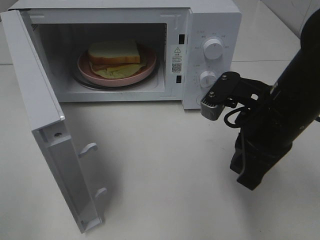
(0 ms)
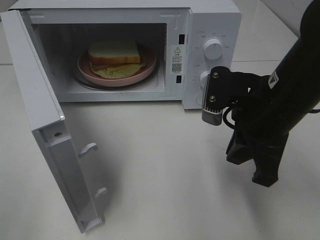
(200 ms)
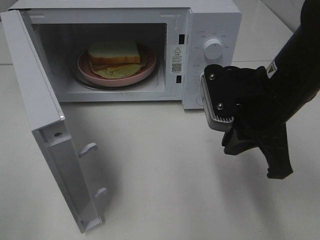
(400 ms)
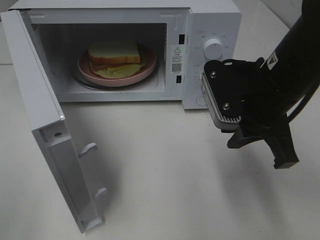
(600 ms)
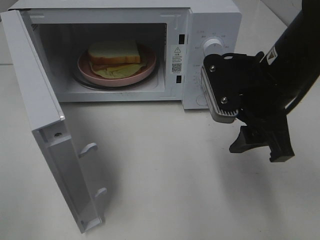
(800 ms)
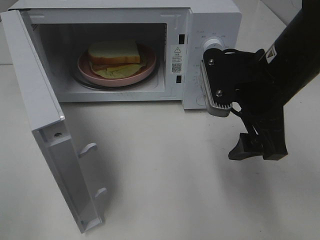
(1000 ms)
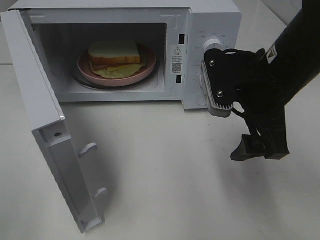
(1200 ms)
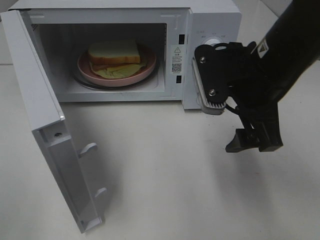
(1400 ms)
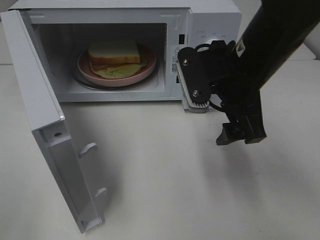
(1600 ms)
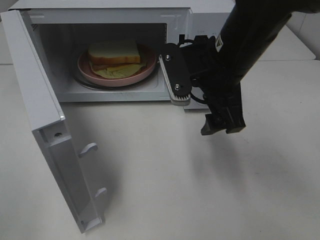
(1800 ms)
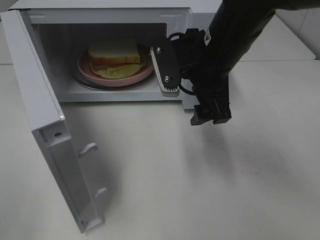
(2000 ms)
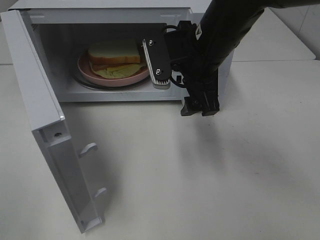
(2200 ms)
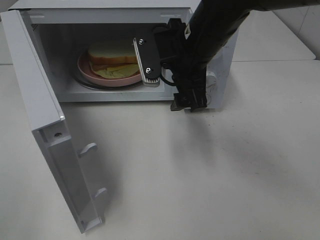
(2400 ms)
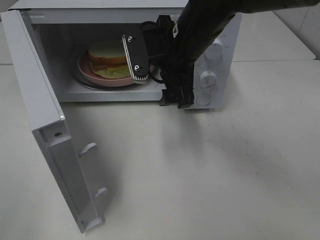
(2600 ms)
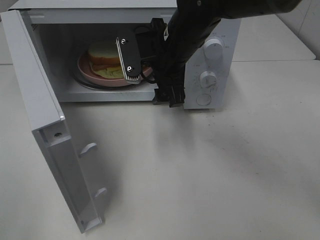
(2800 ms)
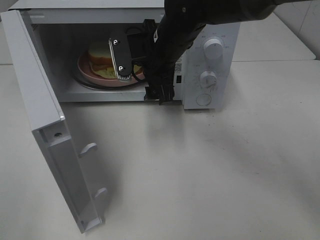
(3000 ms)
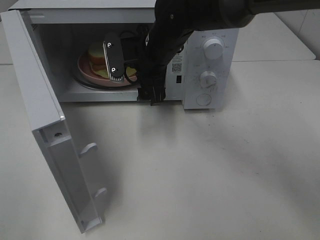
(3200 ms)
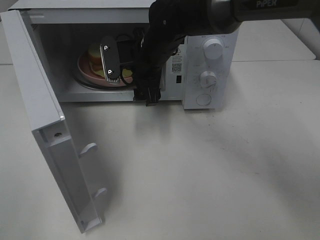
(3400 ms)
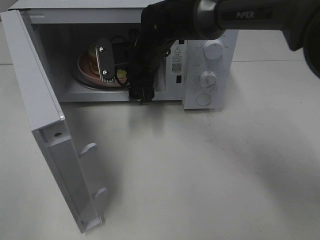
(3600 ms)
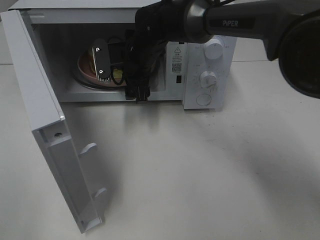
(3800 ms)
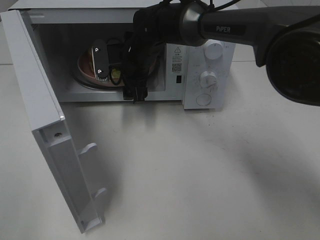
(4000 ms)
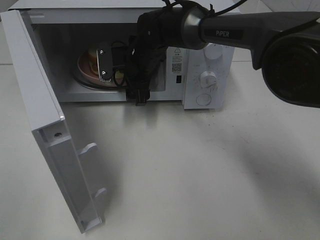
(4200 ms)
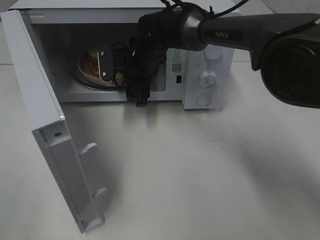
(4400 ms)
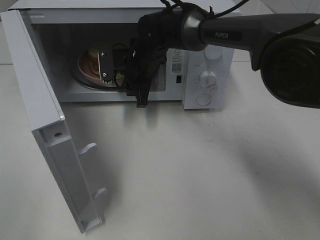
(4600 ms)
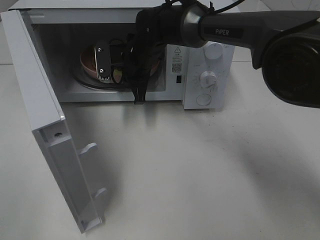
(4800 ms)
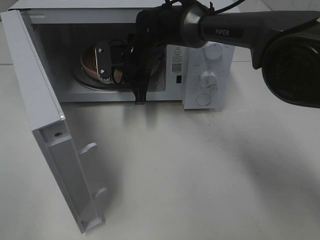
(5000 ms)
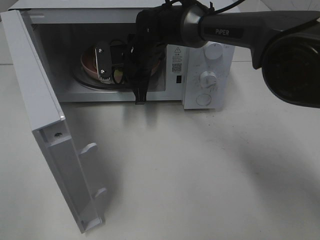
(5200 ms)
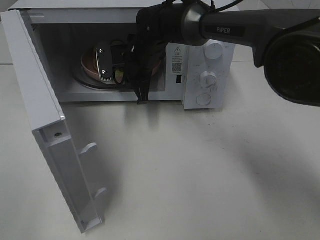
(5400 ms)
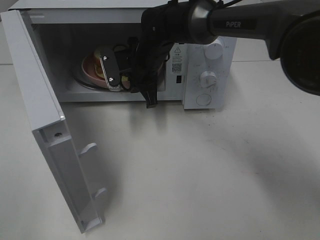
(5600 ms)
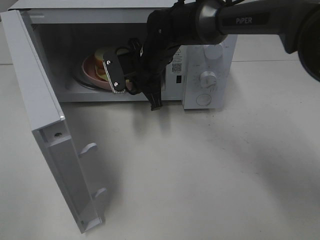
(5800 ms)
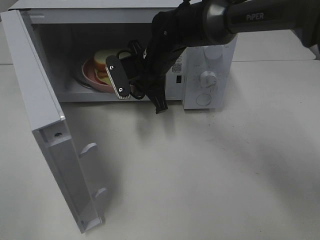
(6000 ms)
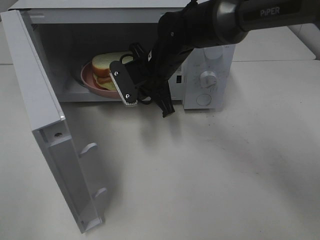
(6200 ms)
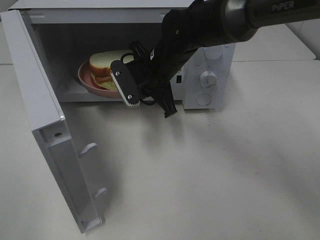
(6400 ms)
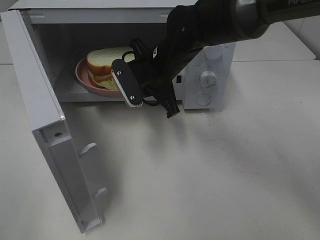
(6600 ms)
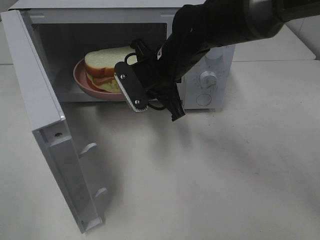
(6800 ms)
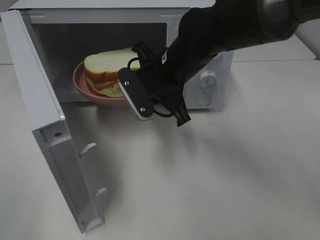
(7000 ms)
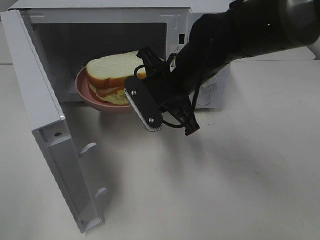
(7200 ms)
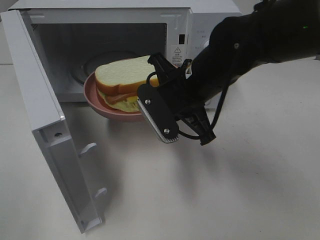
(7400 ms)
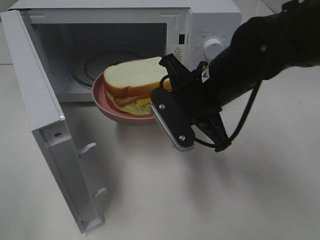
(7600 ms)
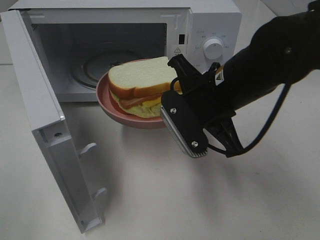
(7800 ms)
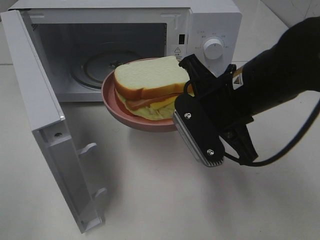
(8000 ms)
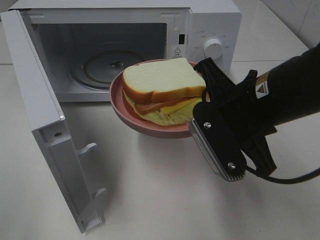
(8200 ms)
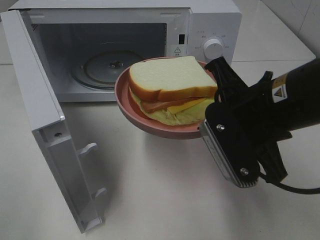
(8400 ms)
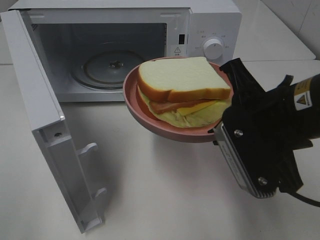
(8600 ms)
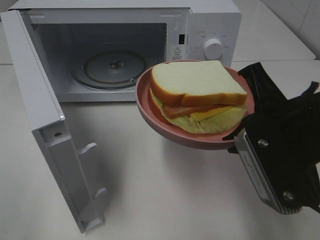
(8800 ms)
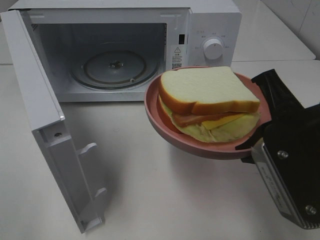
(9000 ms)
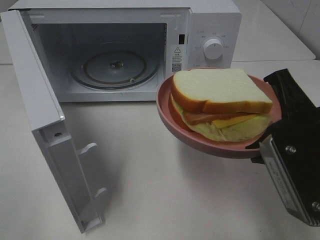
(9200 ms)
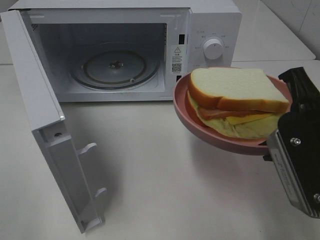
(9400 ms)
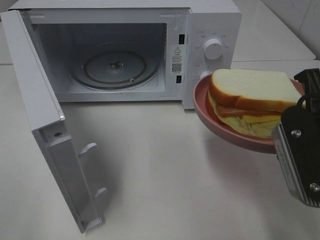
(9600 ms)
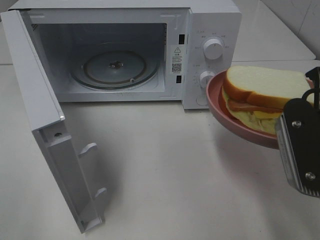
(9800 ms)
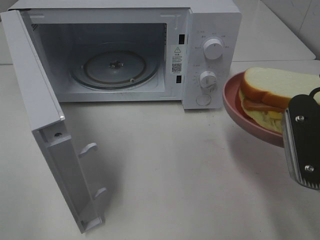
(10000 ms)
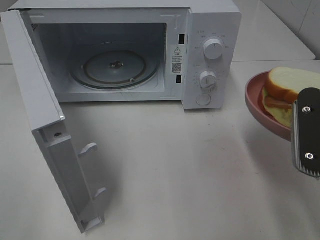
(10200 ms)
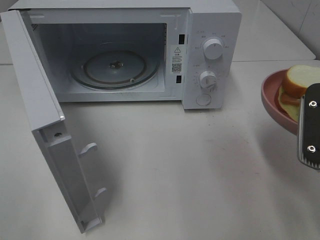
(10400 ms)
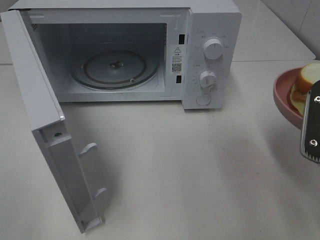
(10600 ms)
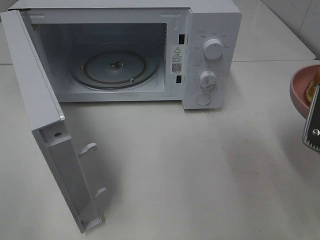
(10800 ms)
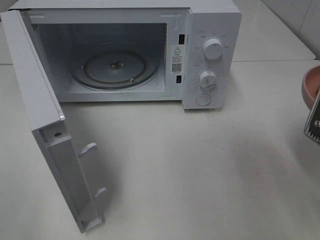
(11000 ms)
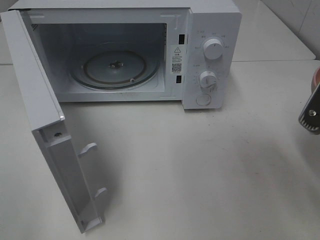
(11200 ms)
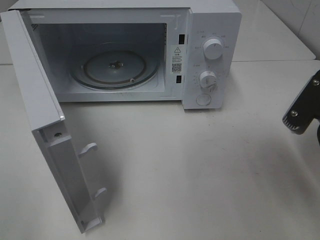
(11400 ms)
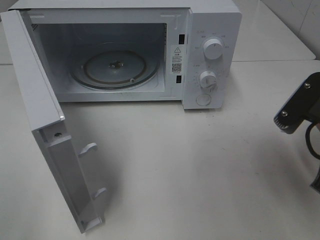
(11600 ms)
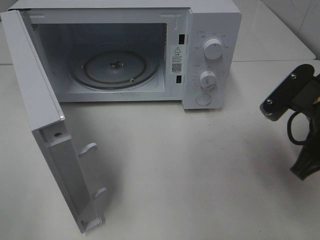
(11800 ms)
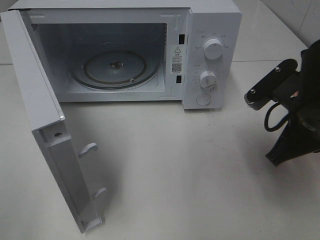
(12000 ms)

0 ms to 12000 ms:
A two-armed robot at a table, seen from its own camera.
Task of the whole recording: Heat Sandwich.
Step, 0 ms to 5400 ms: Right hand: grab the plate with the sandwich.
0 ms to 1600 ms: The right gripper moves roughly 5 cm, and opens.
1600 ms to 3000 ms: The right gripper goes approximately 15 cm forward and to the left.
3000 ms to 4400 ms: The right gripper travels forward and downward by about 10 cm.
4400 ms to 6000 ms: The right gripper moves about 5 cm, and closes.
6000 ms to 7600 ms: The right gripper heads backward and to the right, covering approximately 15 cm.
7600 ms to 9000 ms: The right gripper is displaced backward and to the right by roughly 15 cm.
9000 ms to 10400 ms: The right gripper goes roughly 5 cm to the right.
10400 ms to 12000 ms: The right gripper travels forward by some 5 cm.

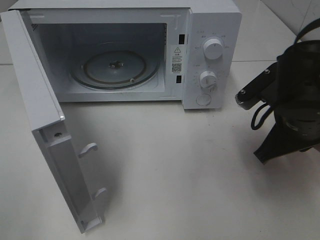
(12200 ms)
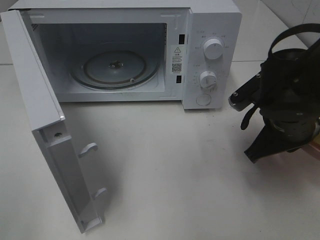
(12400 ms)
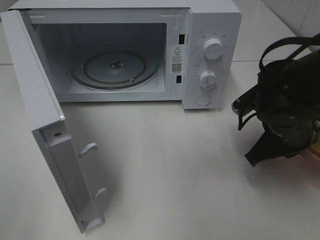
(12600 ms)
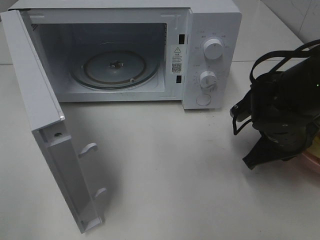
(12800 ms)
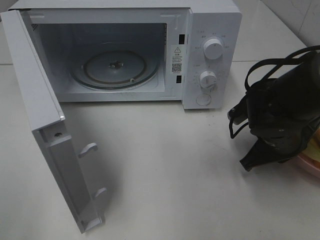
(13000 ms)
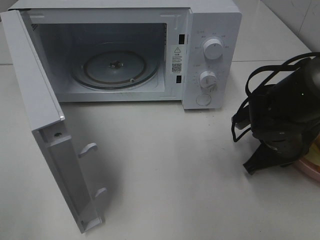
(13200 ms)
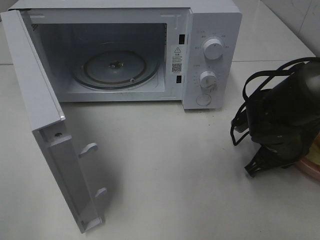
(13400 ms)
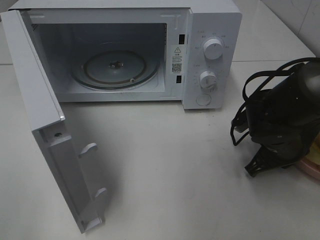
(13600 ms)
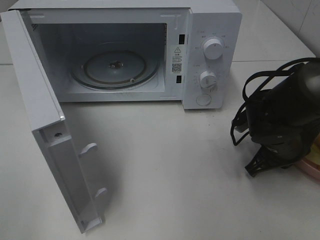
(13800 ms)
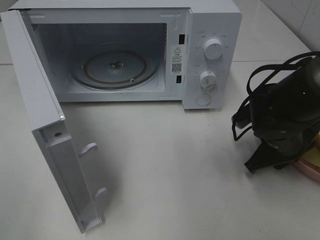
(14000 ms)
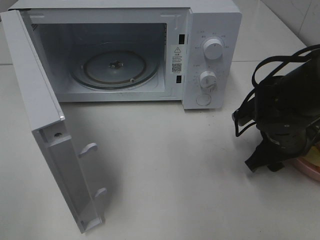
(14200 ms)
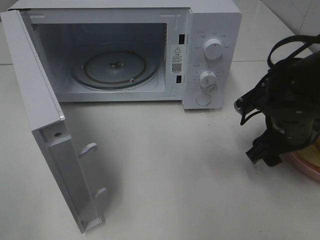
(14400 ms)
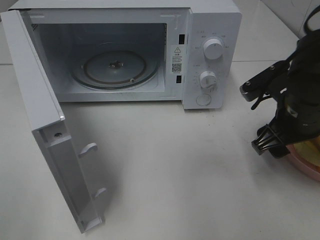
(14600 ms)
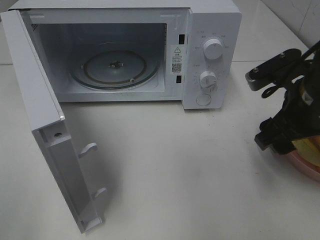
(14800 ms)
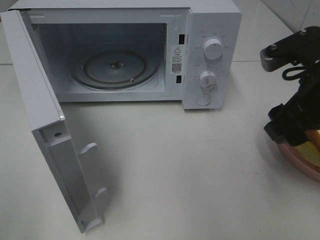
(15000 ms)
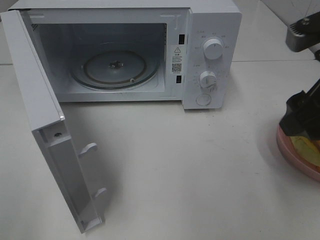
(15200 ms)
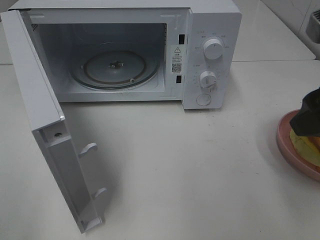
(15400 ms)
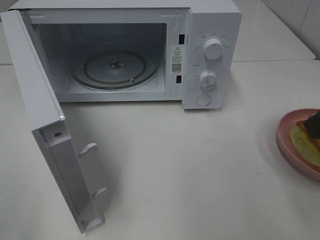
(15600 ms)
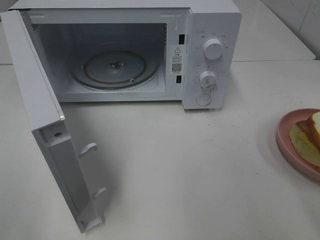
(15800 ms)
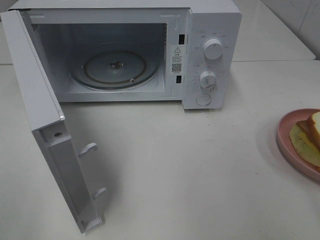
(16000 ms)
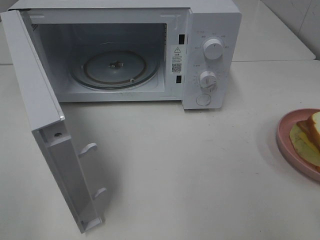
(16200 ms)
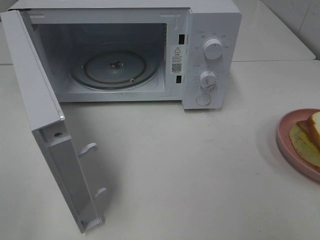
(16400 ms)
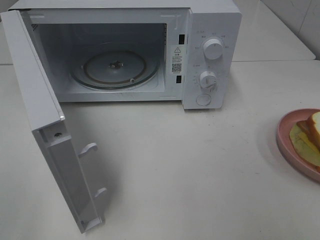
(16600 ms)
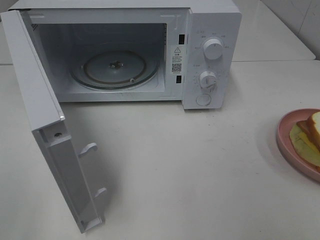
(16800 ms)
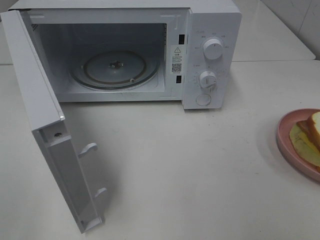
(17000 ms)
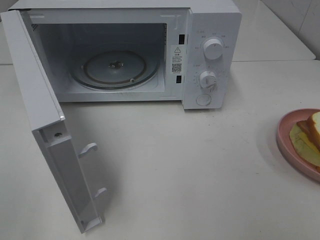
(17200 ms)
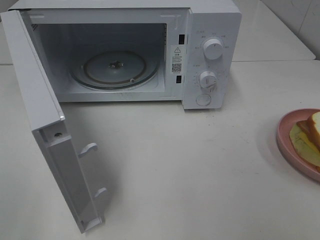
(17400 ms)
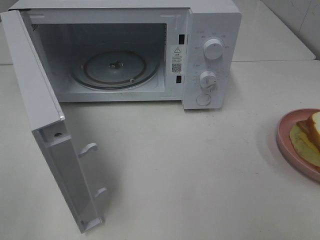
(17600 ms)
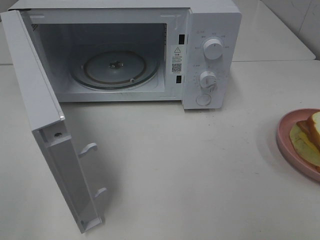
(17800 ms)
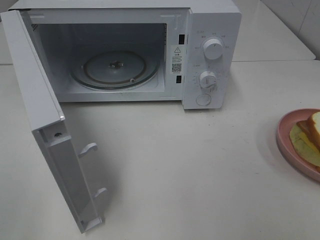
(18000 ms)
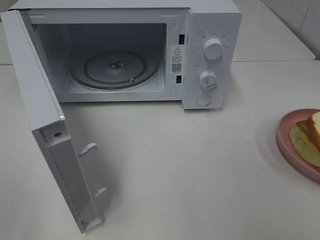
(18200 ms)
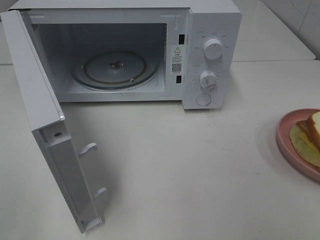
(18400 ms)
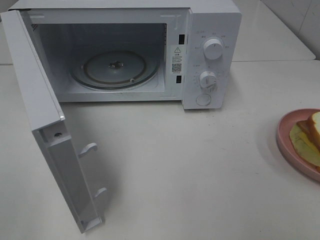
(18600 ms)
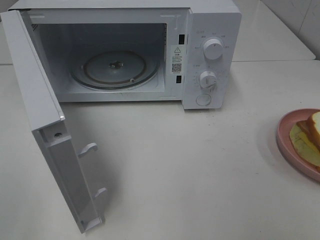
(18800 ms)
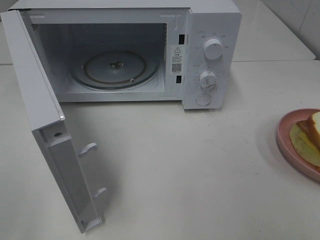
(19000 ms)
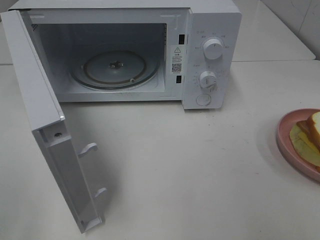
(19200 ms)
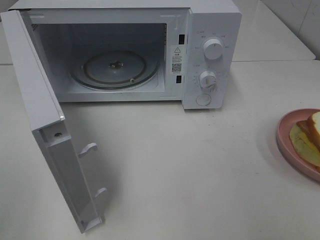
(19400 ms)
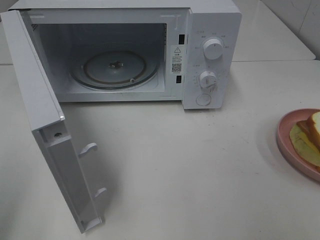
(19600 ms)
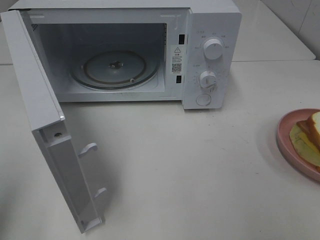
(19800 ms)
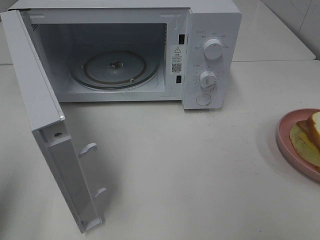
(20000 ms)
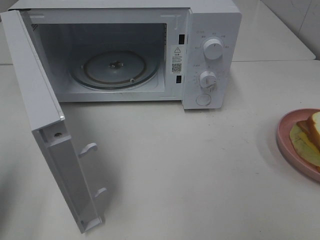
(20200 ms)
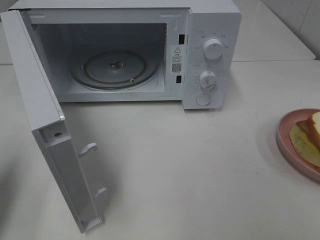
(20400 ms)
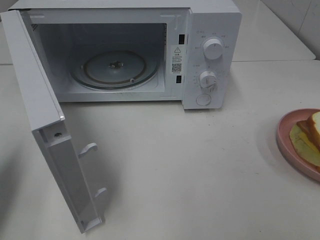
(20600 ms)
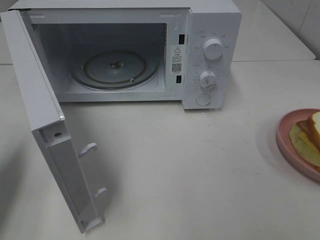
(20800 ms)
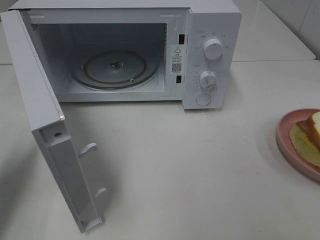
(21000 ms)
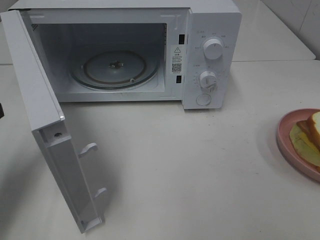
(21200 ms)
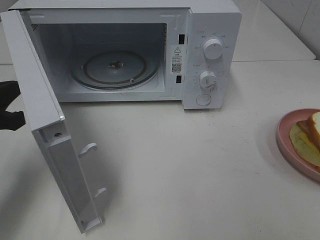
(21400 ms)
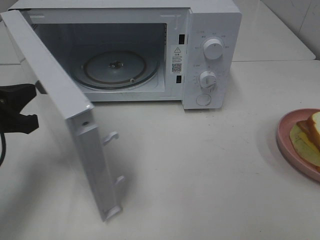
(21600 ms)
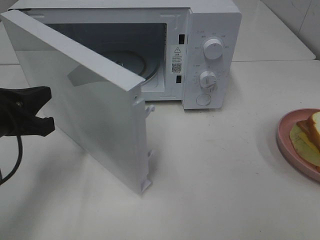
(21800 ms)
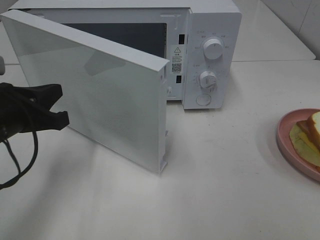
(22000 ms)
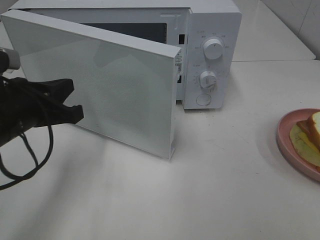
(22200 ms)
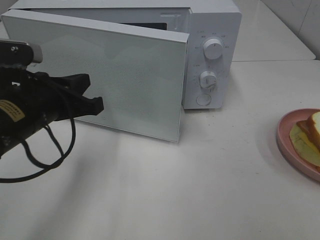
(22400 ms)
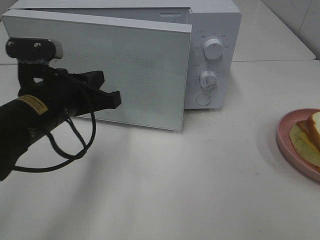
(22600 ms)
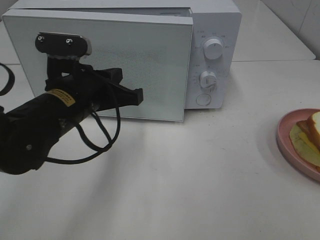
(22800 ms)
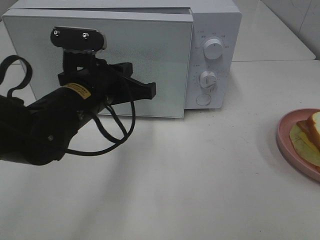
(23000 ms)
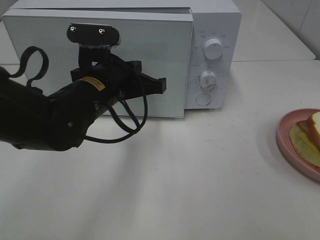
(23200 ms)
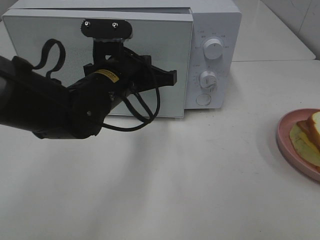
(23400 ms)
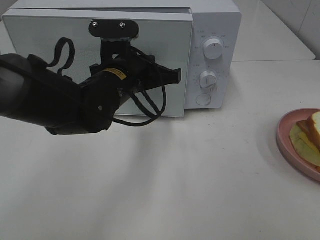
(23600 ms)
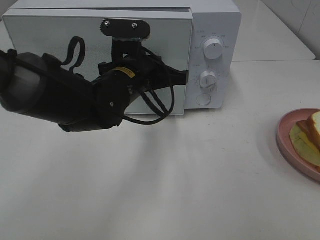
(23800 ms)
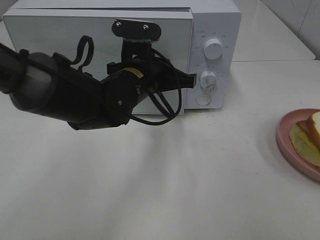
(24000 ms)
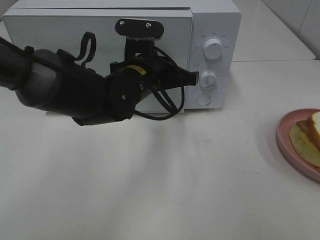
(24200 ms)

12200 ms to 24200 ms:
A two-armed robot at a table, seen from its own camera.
Task of the whole recording: Heat Sandwich.
Step, 12200 ms to 15000 ms: Right hand: place the plate on the table.
12200 ms to 13800 ms: The right gripper shifts roughly 10 cm downward.
13800 ms to 15200 ms: The right gripper travels upward and backward by approximately 20 cm, and opens its fingers.
15200 ms to 16600 ms: The right gripper travels backward and to the right by some 15 cm.
19800 ms to 21200 ms: The left gripper moves forward and downward, approximately 15 cm.
21200 ms to 22600 ms: The left gripper moves to the right, roughly 15 cm.
22600 ms to 24200 ms: The left gripper shifts some 15 cm to the right and forward.
